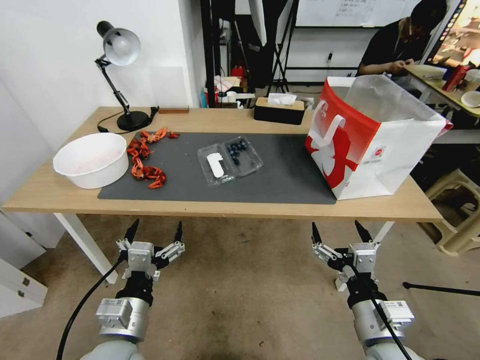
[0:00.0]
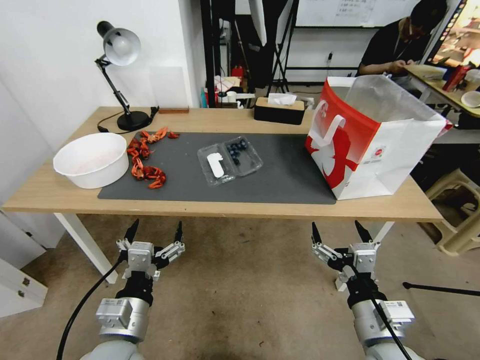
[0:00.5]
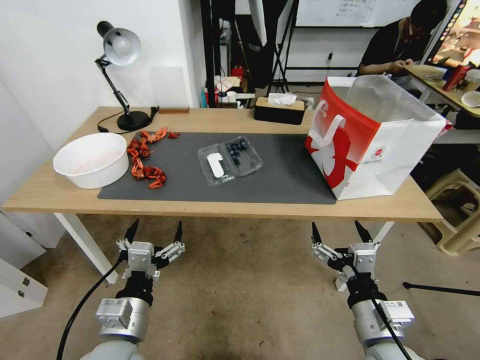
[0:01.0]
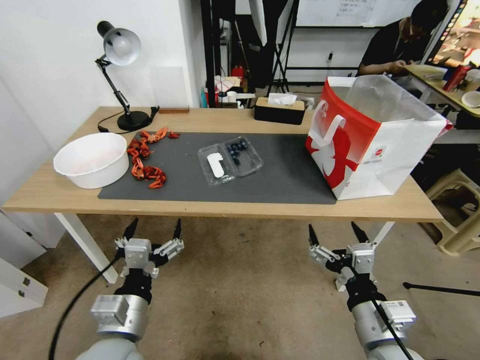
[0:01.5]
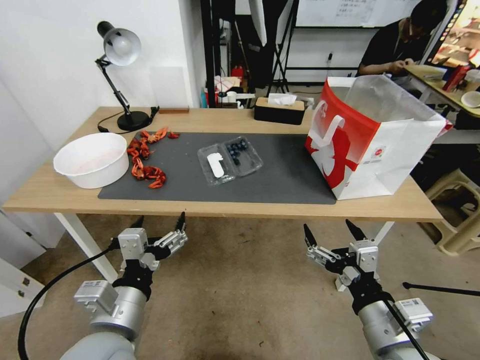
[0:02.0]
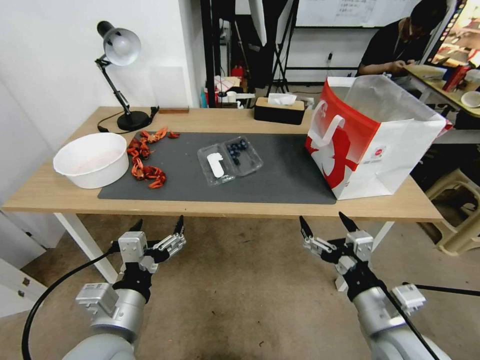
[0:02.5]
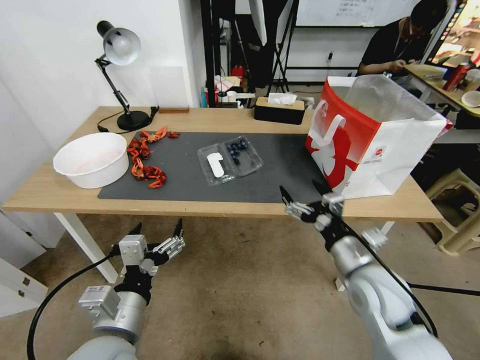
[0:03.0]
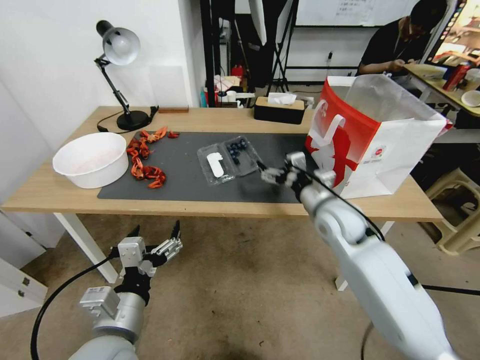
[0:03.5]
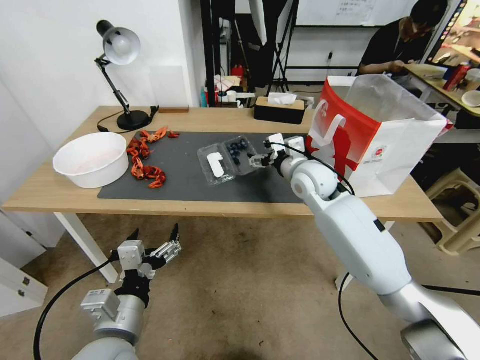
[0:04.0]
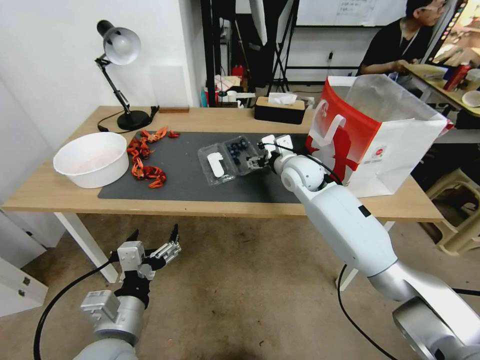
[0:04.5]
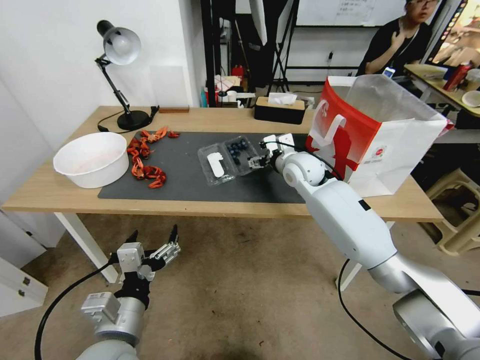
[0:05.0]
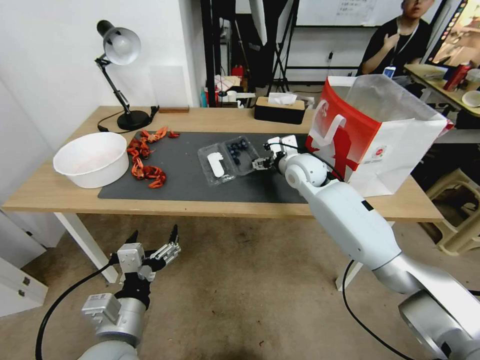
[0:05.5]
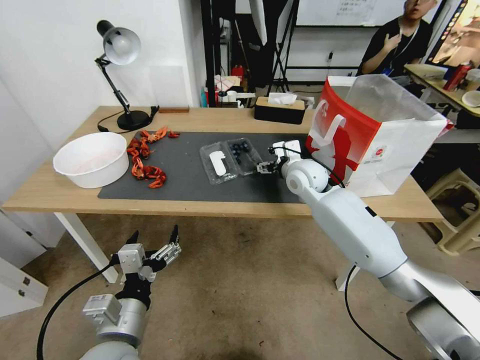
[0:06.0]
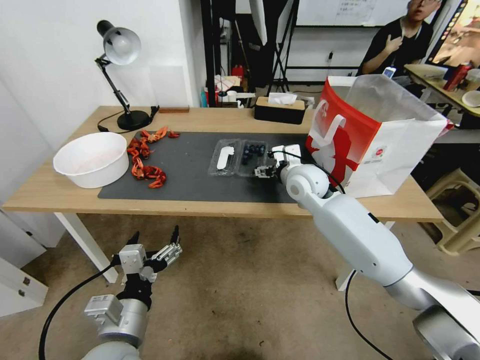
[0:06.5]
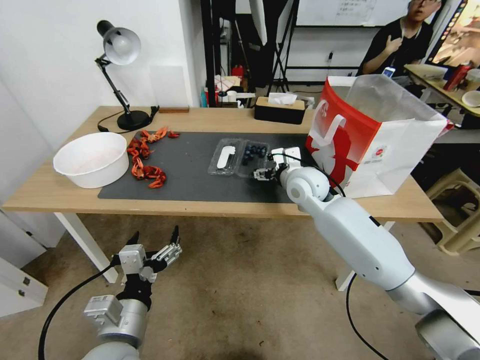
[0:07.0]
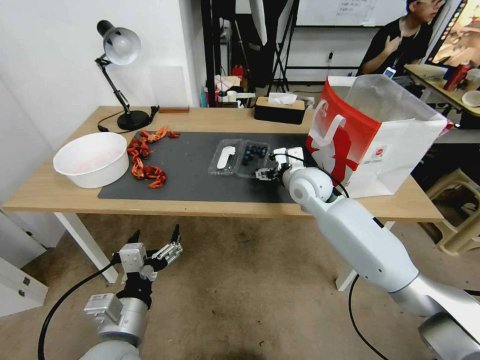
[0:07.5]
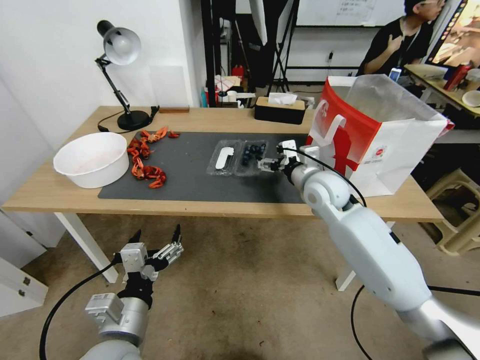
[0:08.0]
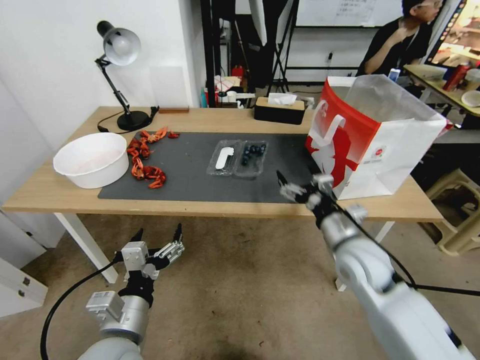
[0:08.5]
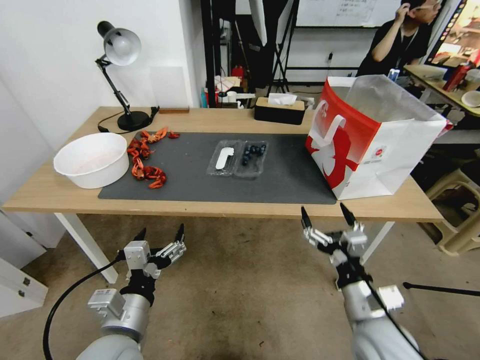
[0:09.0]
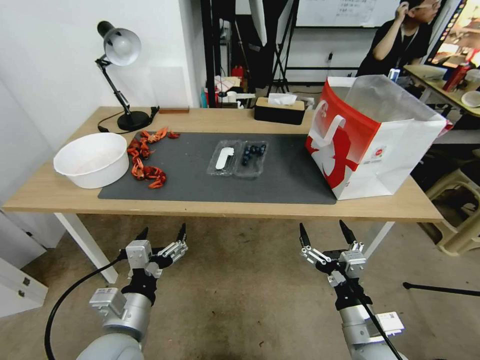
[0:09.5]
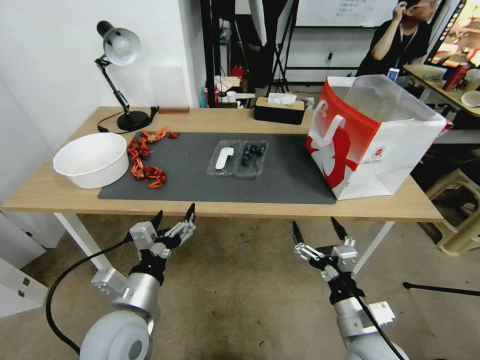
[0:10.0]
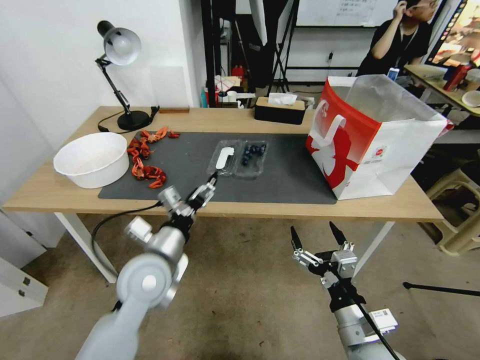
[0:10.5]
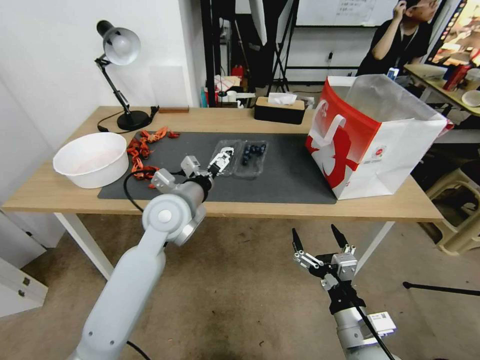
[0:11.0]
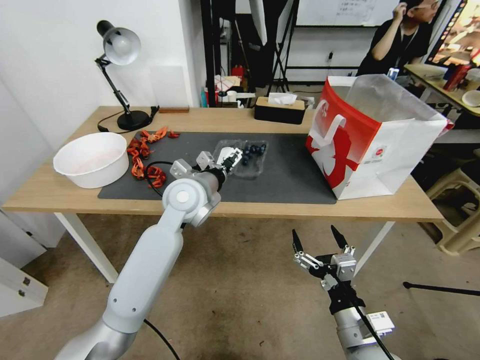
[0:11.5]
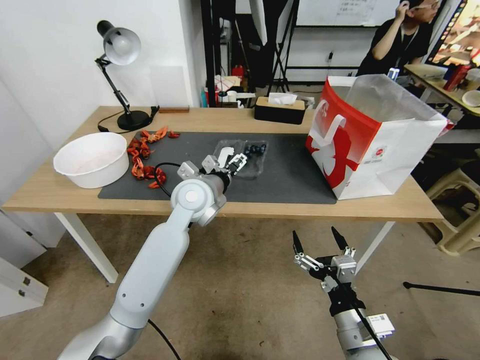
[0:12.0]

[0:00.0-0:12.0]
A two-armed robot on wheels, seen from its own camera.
Task of the whole recording: Close the takeout container lid, then place the container into the takeout bag.
0:02.0 to 0:04.0: The right gripper travels forward by approximately 35 cm.
0:04.0 to 0:06.0: The grippers make only small movements.
0:06.0 to 0:08.0: The right gripper heads backward, covering about 5 cm.
0:08.0 to 0:10.0: The right gripper is displaced backward and downward by about 30 cm.
0:10.0 to 0:12.0: The left gripper is displaced forward and to the right by approximately 25 cm.

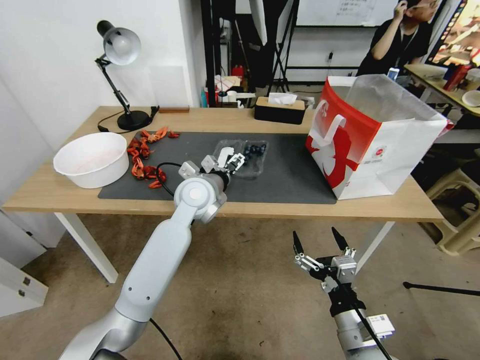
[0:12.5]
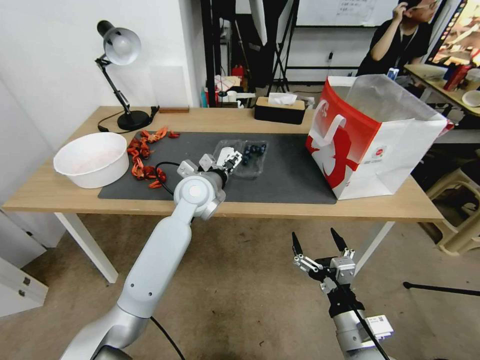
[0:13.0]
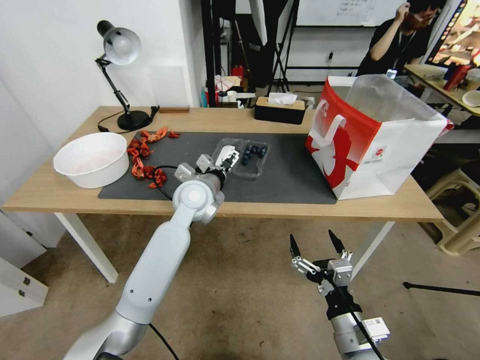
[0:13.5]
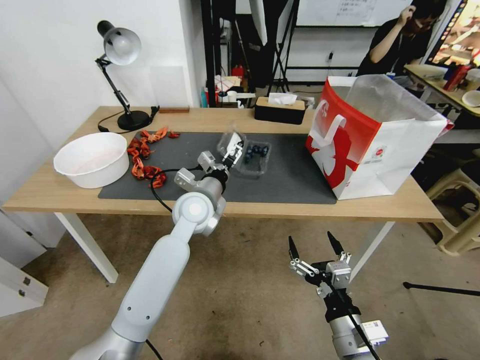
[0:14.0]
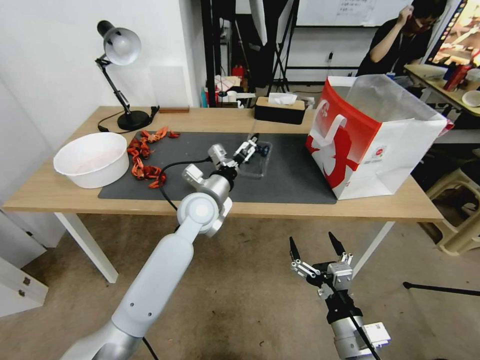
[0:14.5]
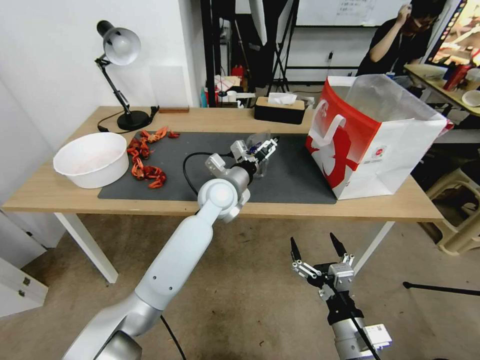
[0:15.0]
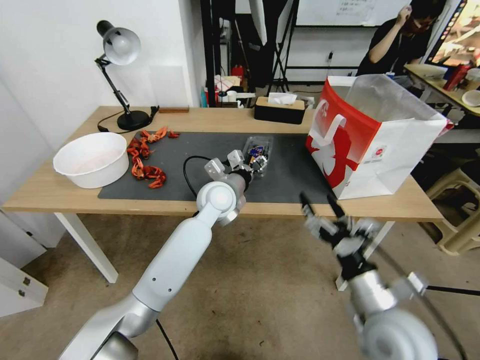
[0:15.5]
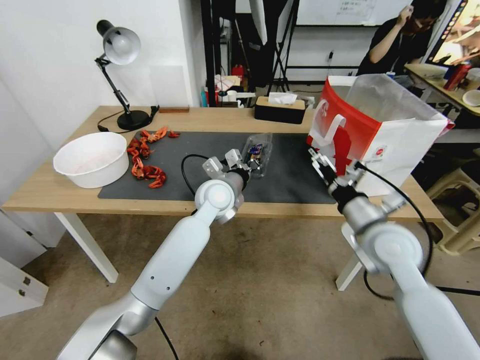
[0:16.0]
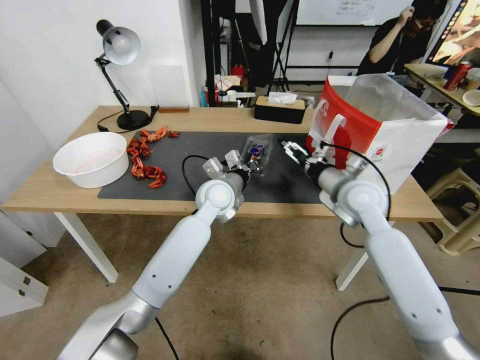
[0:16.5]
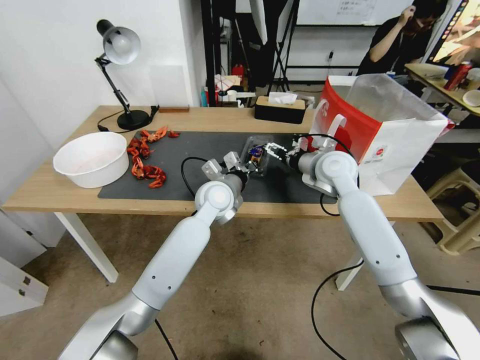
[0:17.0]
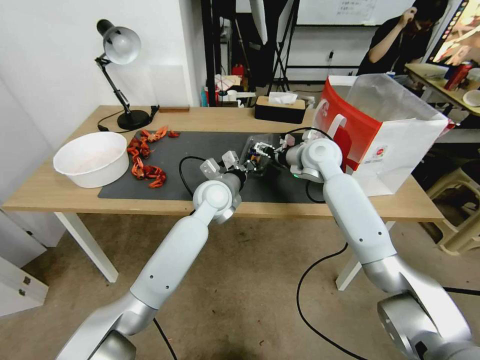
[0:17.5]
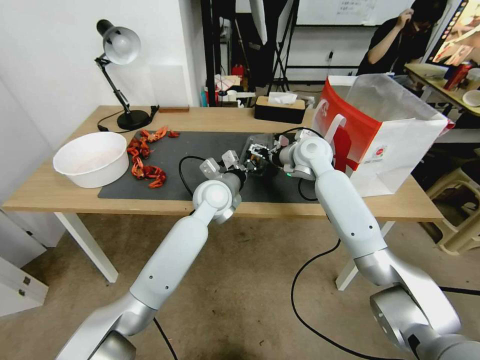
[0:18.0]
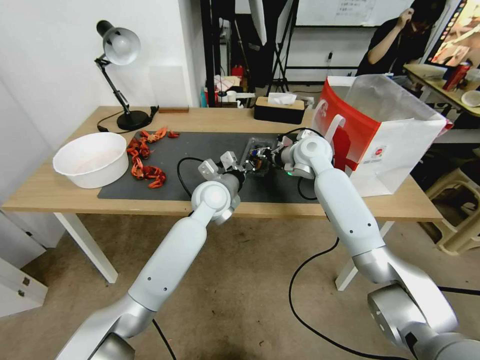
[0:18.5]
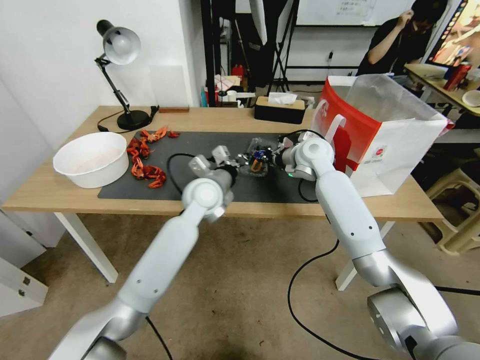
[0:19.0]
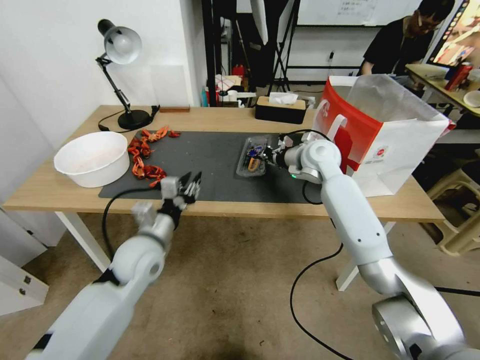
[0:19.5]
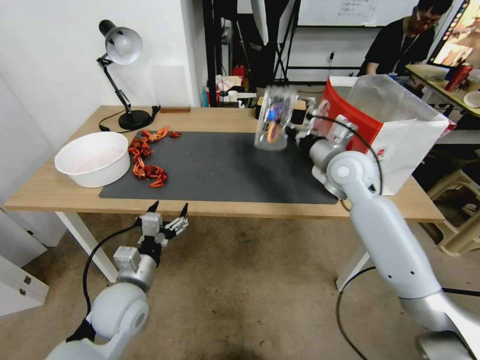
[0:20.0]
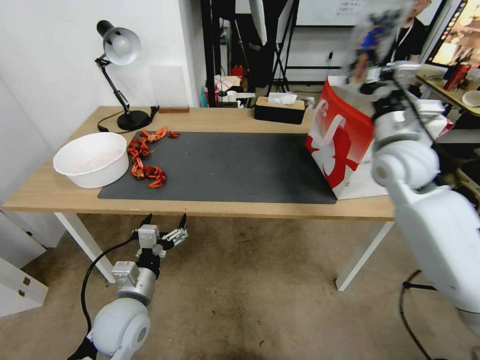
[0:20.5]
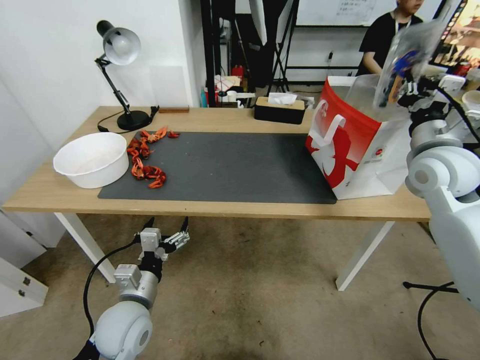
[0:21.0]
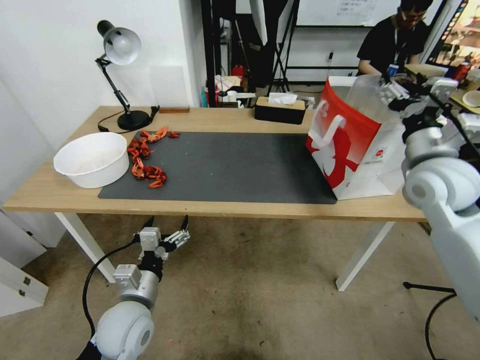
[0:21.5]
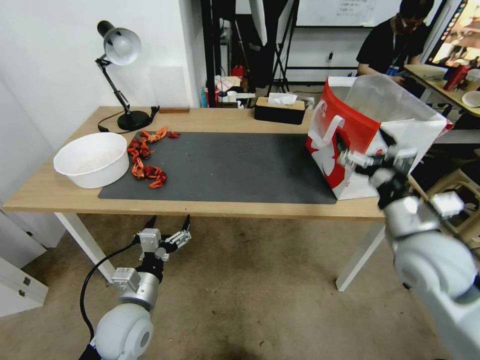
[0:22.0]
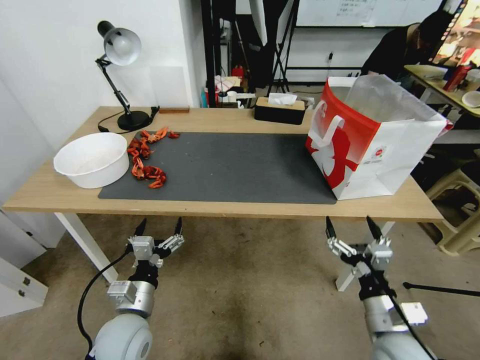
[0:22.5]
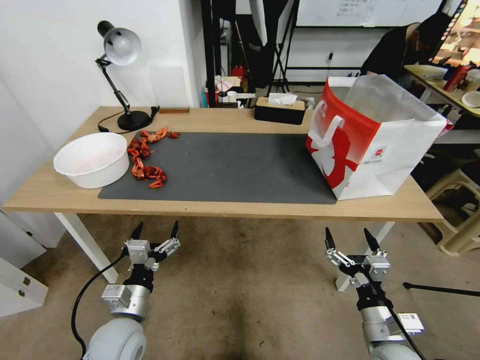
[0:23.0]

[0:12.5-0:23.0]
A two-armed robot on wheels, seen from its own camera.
Task of the whole recording: Close the takeout container lid, then place the container into the takeout bag.
0:14.5 to 0:16.5: The left gripper ends up approximately 5 cm from where it was, and closes its fingers, while the right gripper shifts approximately 35 cm forward and upward.
0:16.5 to 0:19.0: The right gripper is displaced forward and to the left by approximately 15 cm, and closes its fingers.
0:19.0 to 0:21.0: The right gripper is displaced to the right, backward and upward by roughly 25 cm. Meanwhile the left gripper is displaced backward, to the left and downward by some 30 cm, and opens its fingers.
0:21.0 to 0:23.0: The right gripper heads downward and backward, covering roughly 35 cm, and opens its fingers.

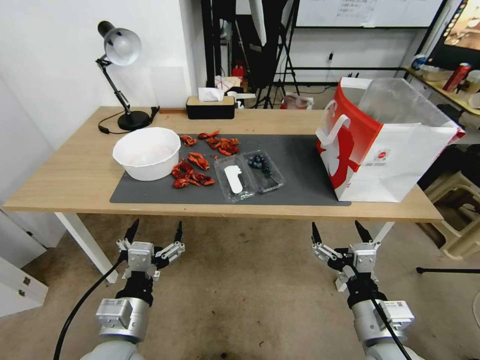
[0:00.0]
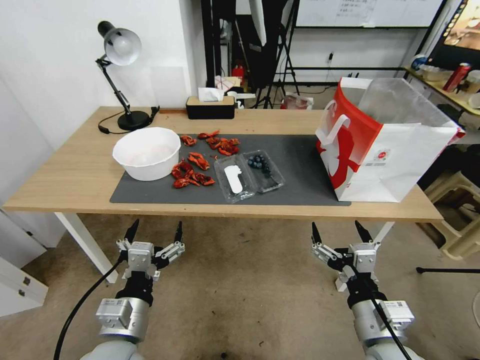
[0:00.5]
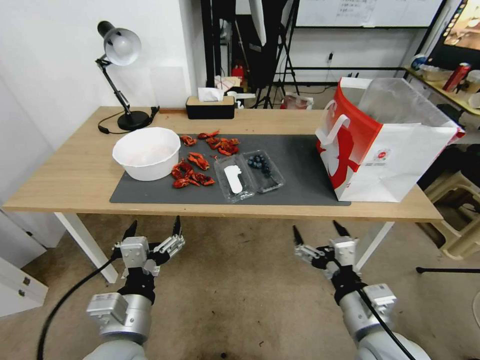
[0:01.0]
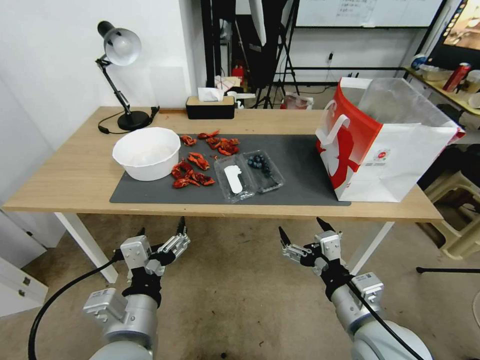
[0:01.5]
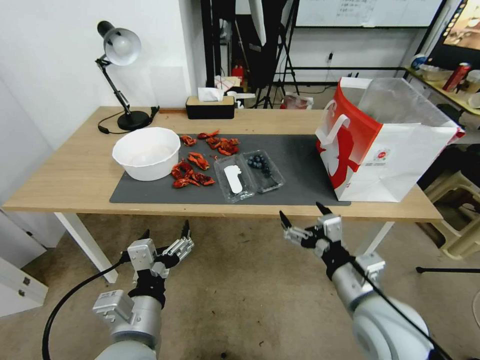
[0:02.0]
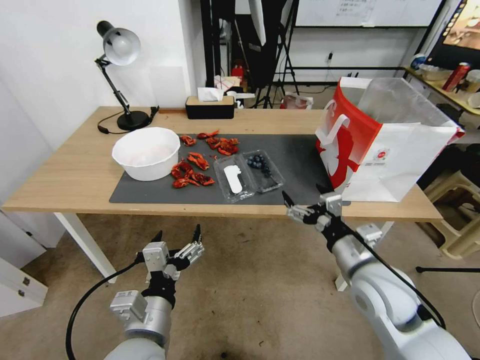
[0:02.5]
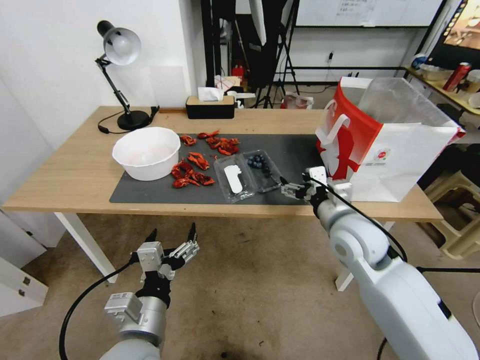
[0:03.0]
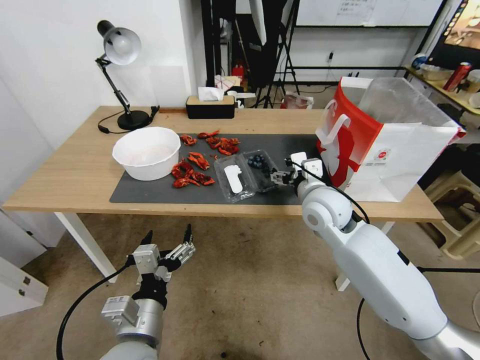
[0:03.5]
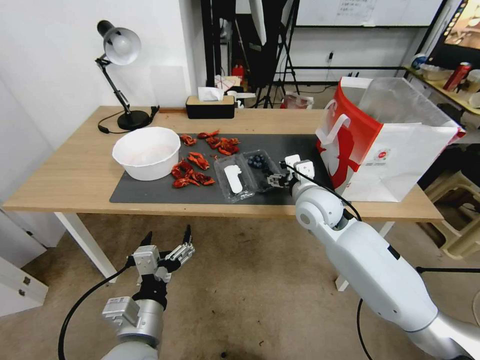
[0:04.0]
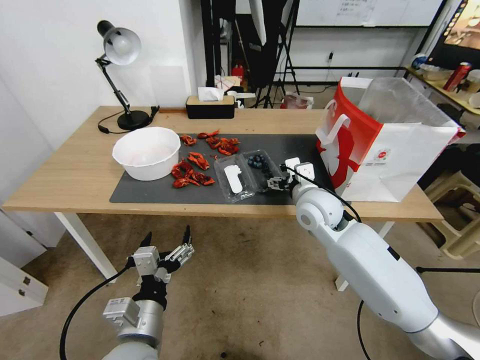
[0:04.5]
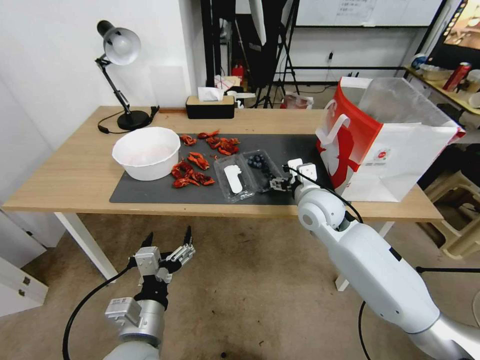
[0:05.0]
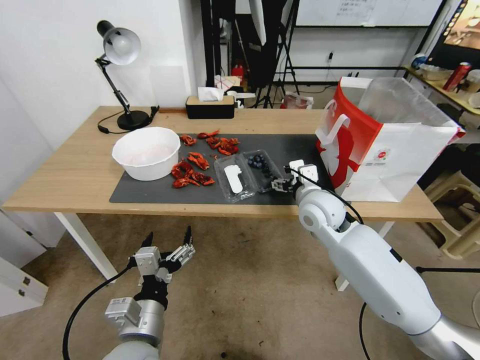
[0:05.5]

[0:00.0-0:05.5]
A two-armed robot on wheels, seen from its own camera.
Task of the whole recording: Close the takeout container lid, then place the container into the takeout bag.
0:02.0 to 0:03.5: The right gripper is displaced forward by roughly 20 cm.
0:03.5 to 0:05.5: There are only small adjustments of the grippers.
